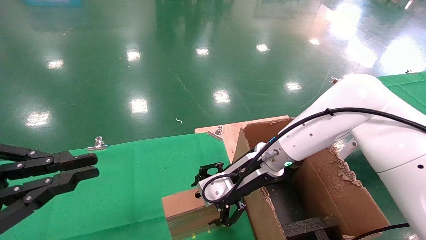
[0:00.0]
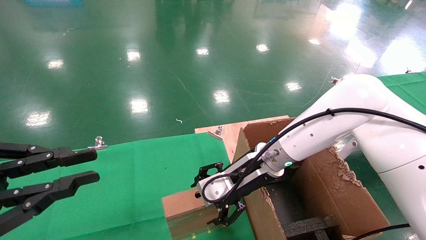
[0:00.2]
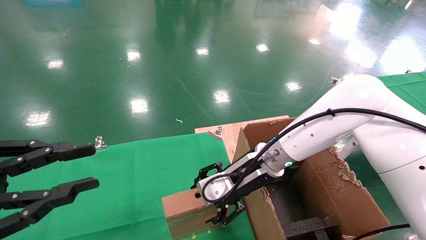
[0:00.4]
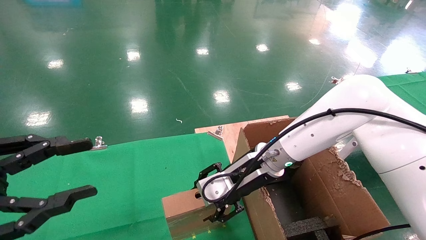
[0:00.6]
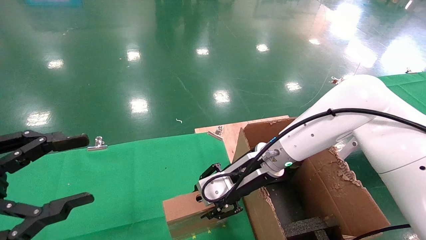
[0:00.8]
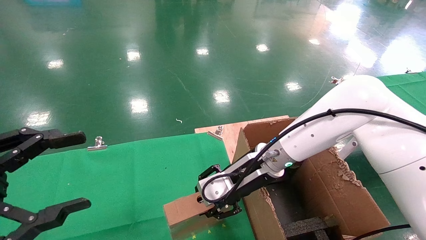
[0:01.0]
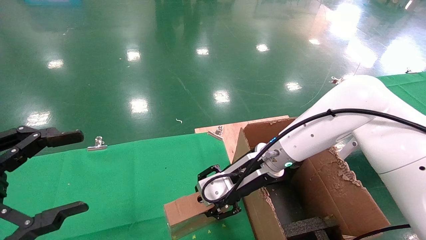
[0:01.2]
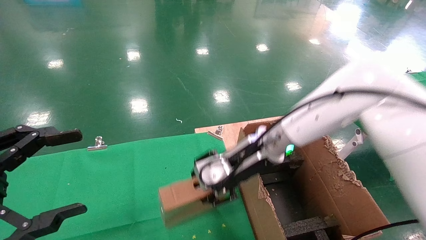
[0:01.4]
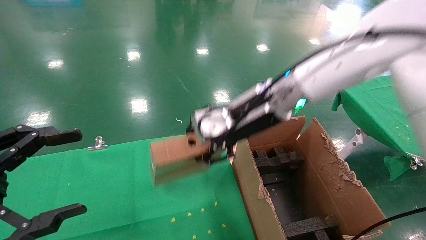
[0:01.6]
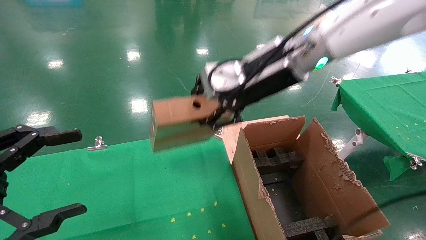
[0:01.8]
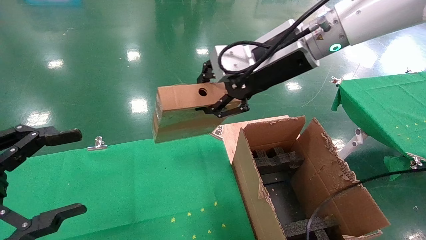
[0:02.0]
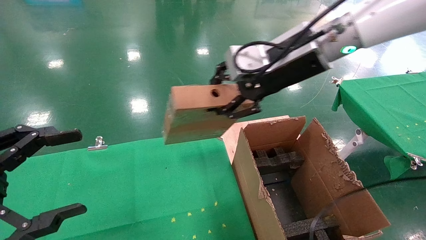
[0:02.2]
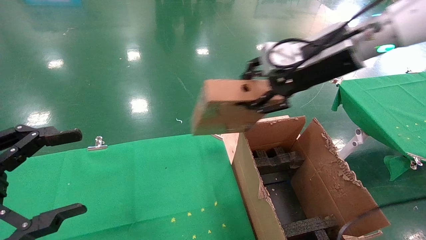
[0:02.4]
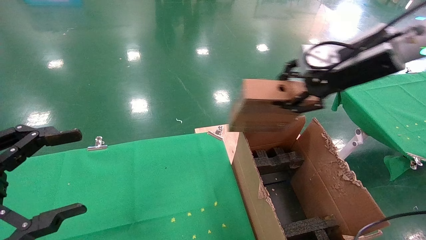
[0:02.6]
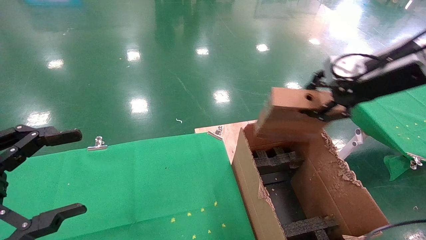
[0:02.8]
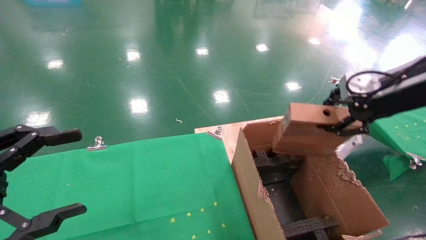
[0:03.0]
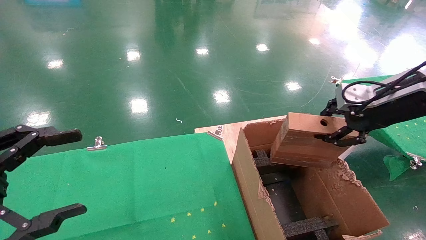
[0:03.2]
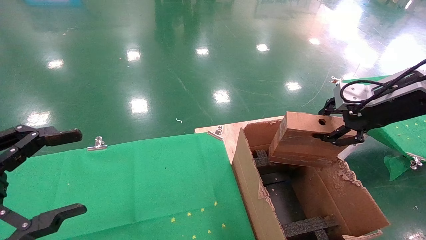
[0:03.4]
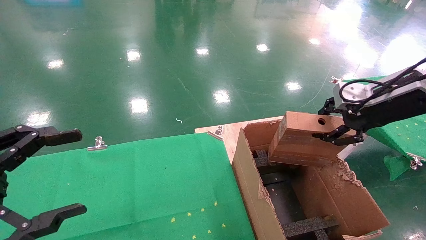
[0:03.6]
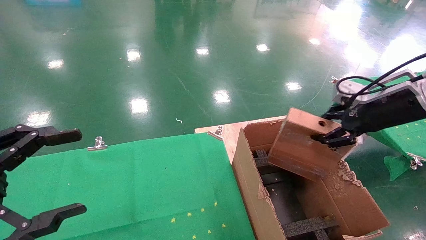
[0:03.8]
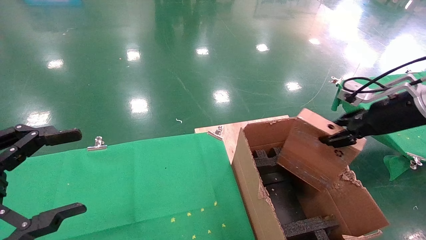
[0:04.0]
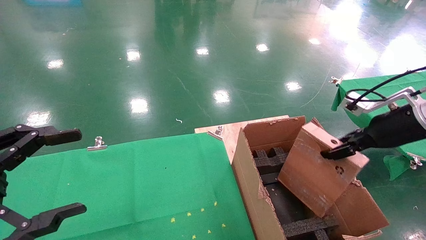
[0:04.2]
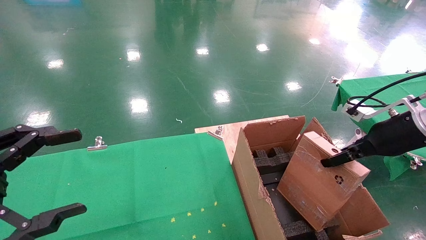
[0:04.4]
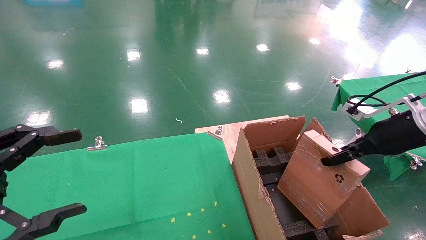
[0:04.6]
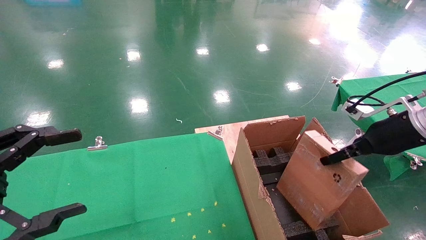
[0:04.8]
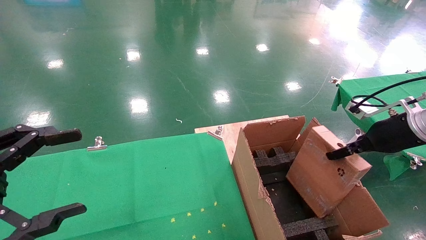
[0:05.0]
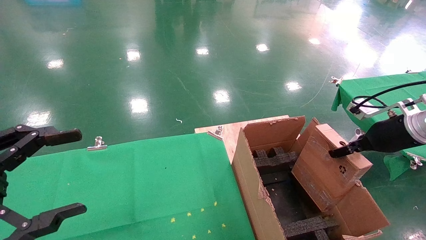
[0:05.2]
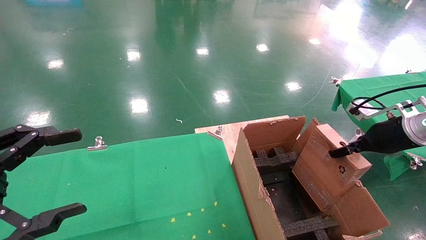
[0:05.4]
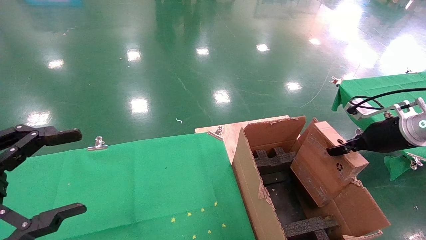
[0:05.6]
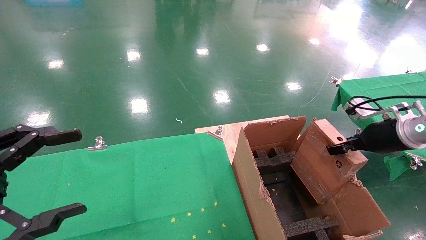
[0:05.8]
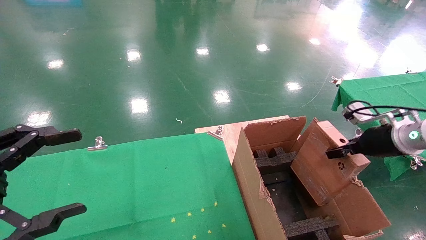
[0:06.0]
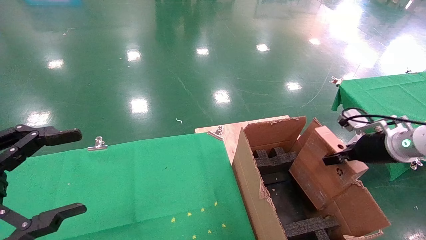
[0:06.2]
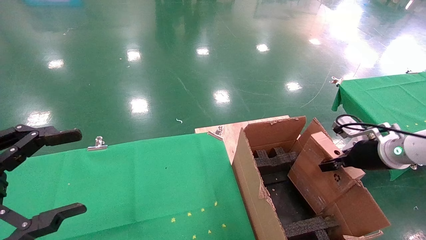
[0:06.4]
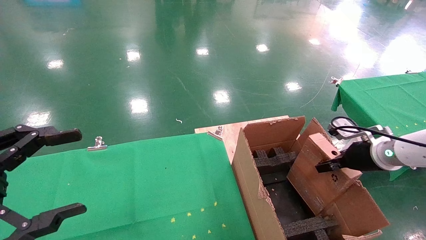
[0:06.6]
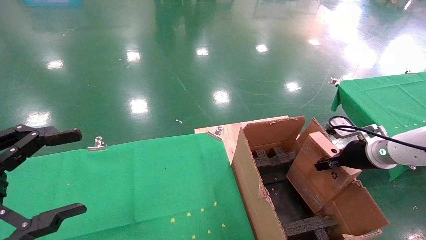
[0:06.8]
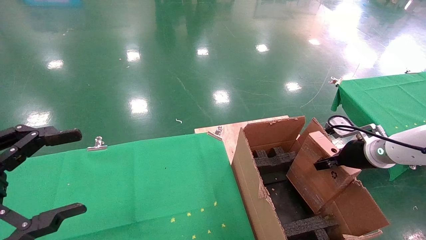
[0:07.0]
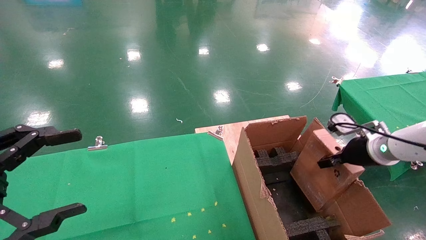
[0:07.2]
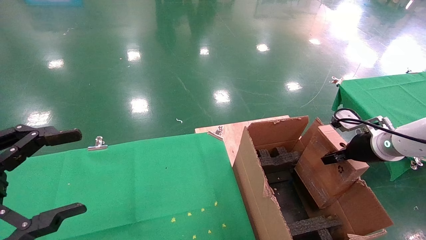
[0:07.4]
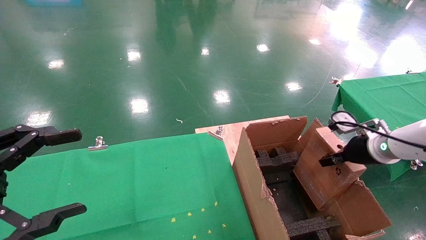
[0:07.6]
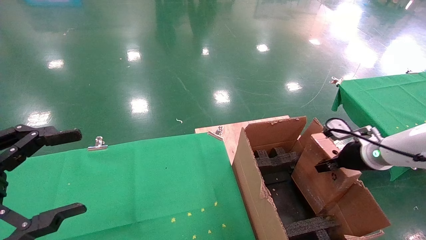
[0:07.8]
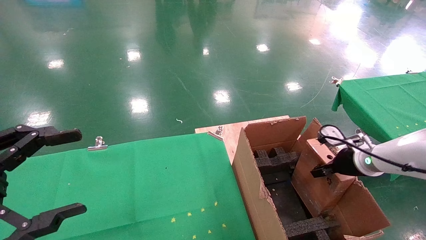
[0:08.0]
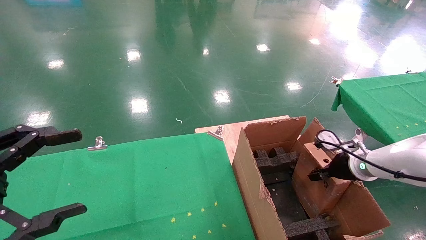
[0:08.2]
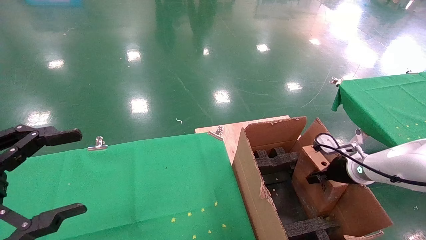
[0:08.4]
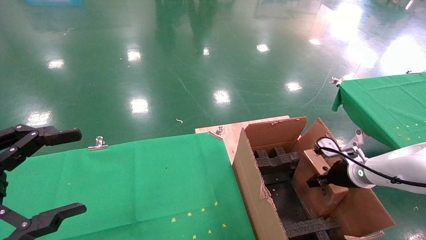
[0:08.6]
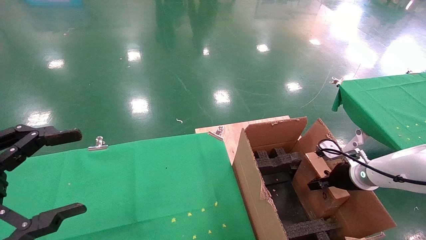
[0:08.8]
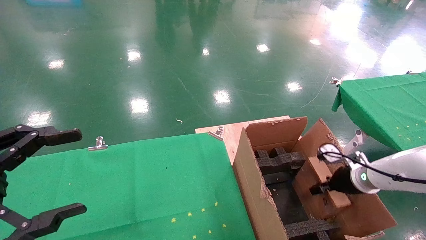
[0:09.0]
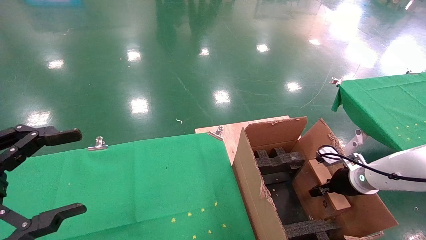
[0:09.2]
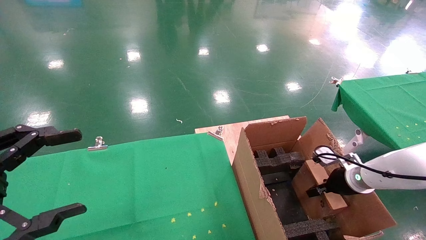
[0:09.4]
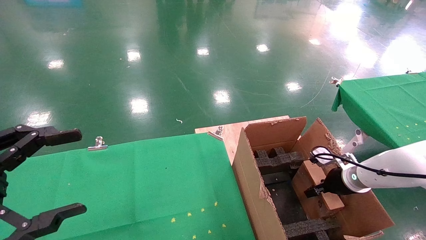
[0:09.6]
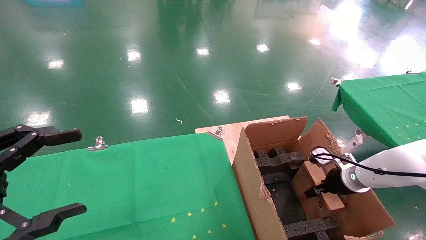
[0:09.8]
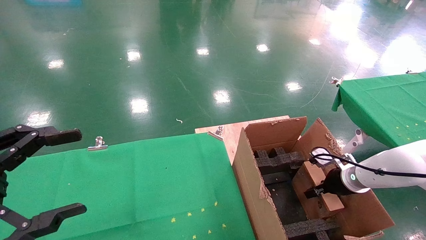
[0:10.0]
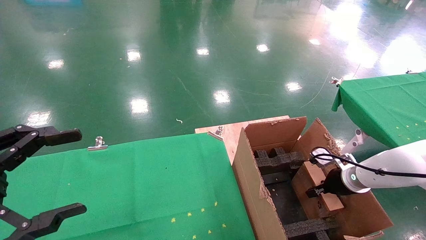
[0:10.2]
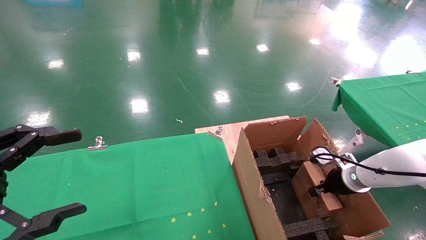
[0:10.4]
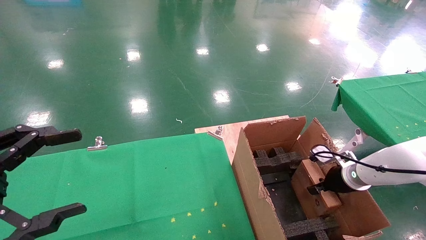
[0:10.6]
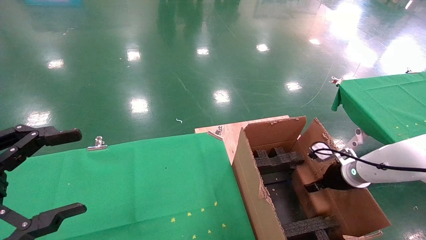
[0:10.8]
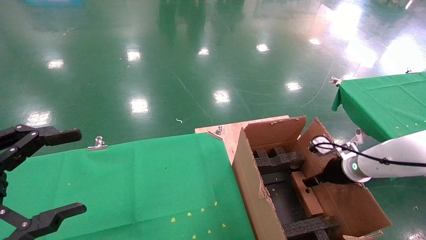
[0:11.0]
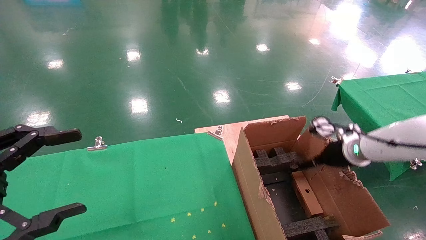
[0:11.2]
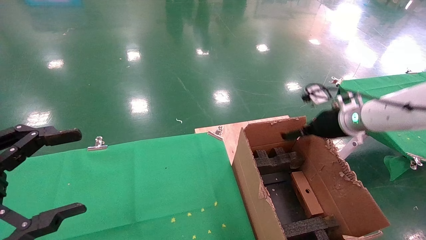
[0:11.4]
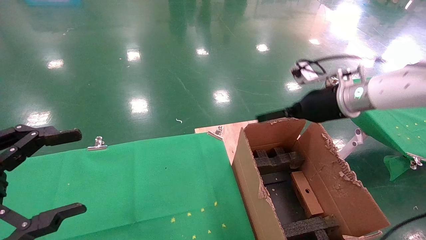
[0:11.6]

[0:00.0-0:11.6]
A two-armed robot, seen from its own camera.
Task of the whole recording: using a robotic arm to pick up a cardboard box and palace it the carton.
Step, 0:01.2 to 0:11.4: Place the mouse and the power cord paper box into the container.
0:00.0 to 0:01.4: The left gripper opens up. The right gripper goes about 5 cm upward, and closes up.
0:01.4 to 0:02.8: The right gripper is displaced to the right and upward by about 25 cm.
0:02.8 to 0:04.4: The right gripper shifts approximately 15 cm downward and to the right.
0:04.4 to 0:05.8: The right gripper shifts by about 5 cm.
0:05.8 to 0:07.2: The right gripper ends up about 5 cm from where it was.
0:07.2 to 0:08.8: The right gripper moves downward, some 10 cm.
0:08.8 to 0:10.2: The grippers stay close to where they were, moving slightly.
0:10.2 to 0:11.6: The right gripper moves upward, approximately 20 cm, and opens up.

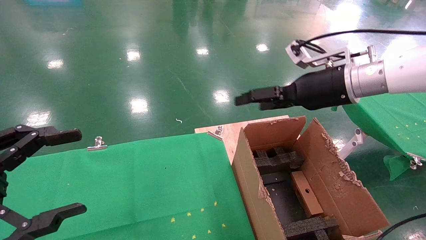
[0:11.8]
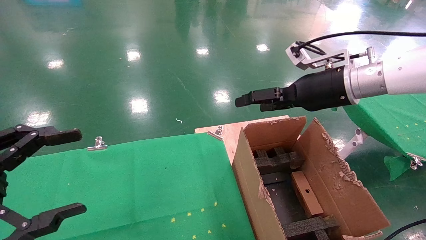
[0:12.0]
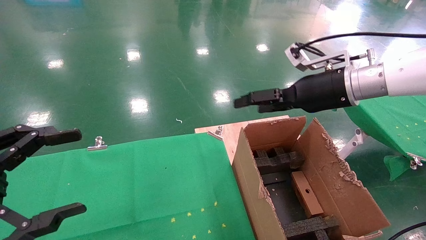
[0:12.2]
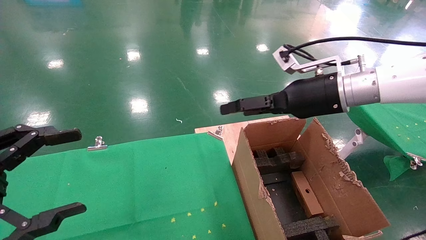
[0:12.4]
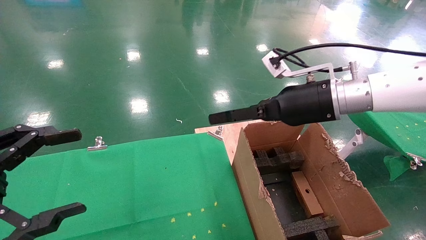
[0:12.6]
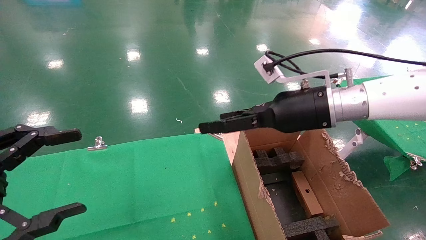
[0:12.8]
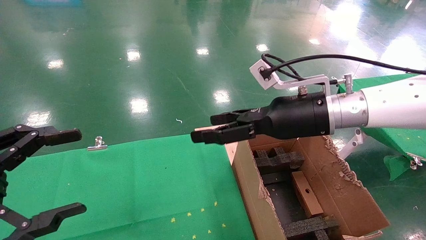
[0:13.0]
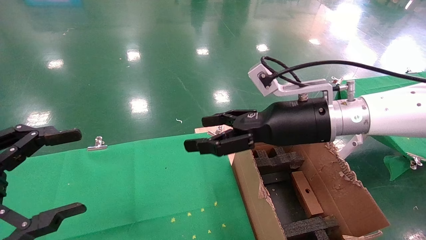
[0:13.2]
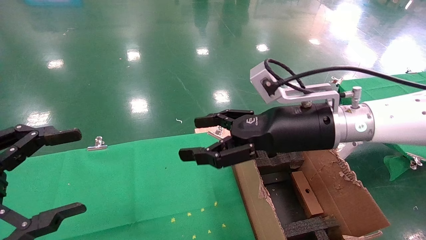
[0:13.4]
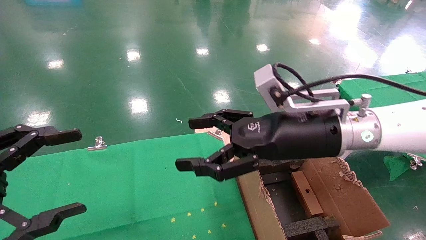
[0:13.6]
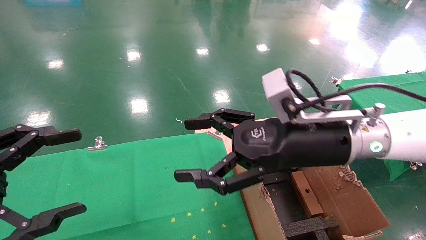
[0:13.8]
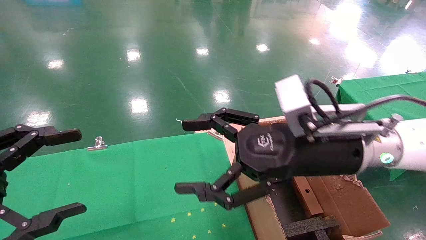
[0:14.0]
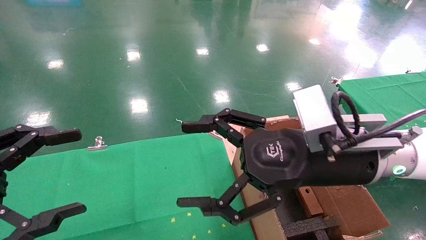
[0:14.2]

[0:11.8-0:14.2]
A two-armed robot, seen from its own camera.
Task of the whole recording: using a robotic arm to pick up a cardboard box and palace it the carton.
0:11.8 to 0:13.0: The right gripper moves to the left, roughly 10 cm.
0:13.0 to 0:14.2: The right gripper moves backward, roughly 10 cm.
